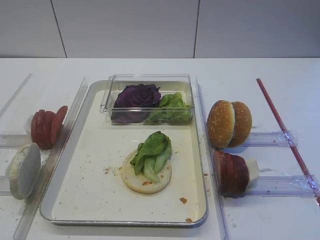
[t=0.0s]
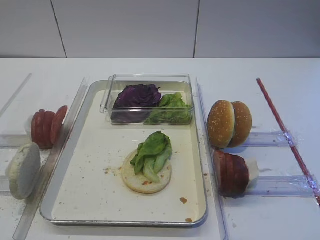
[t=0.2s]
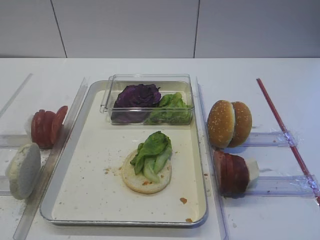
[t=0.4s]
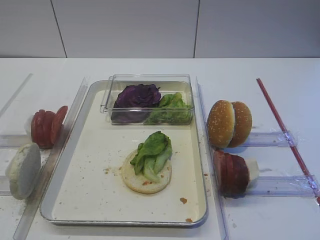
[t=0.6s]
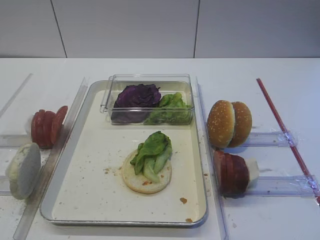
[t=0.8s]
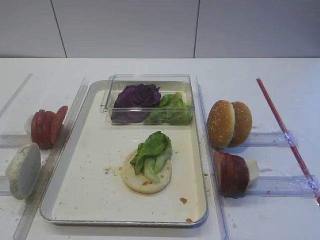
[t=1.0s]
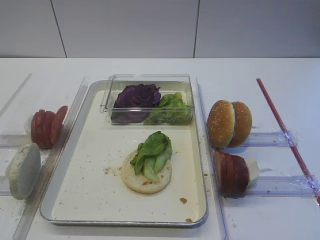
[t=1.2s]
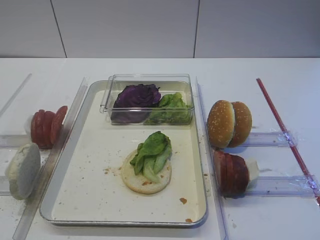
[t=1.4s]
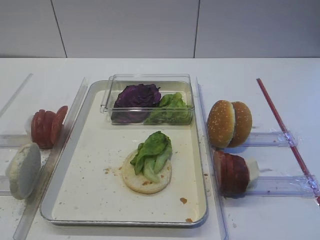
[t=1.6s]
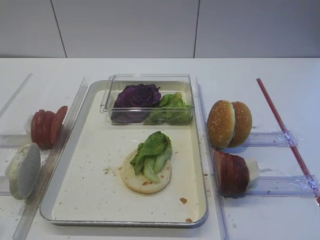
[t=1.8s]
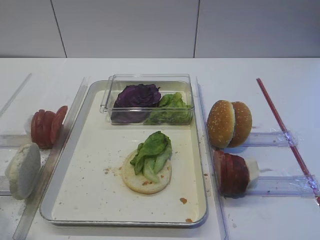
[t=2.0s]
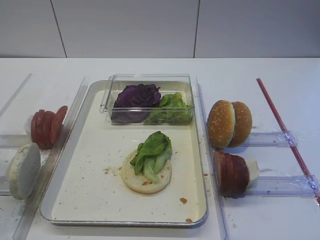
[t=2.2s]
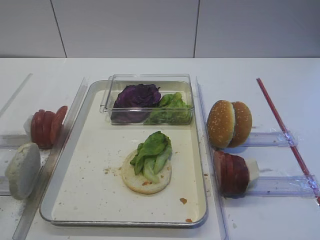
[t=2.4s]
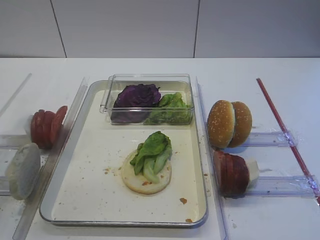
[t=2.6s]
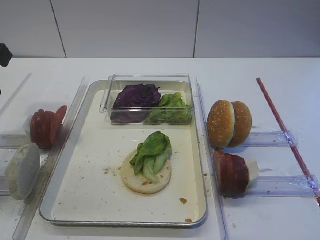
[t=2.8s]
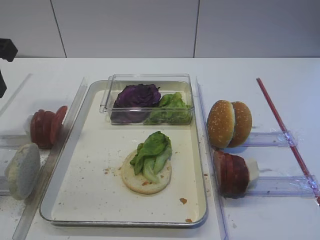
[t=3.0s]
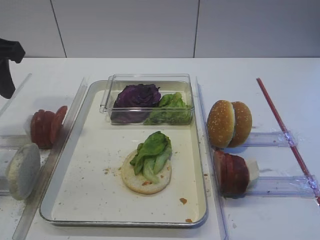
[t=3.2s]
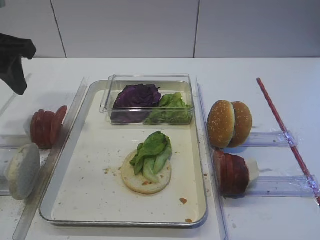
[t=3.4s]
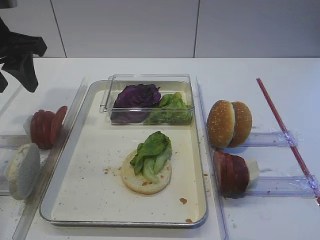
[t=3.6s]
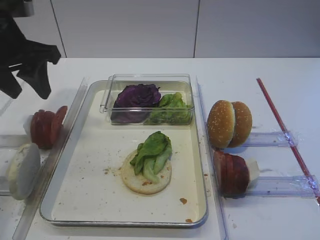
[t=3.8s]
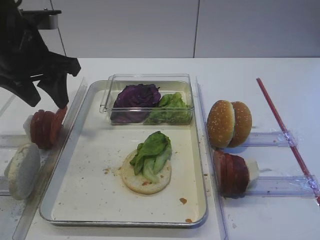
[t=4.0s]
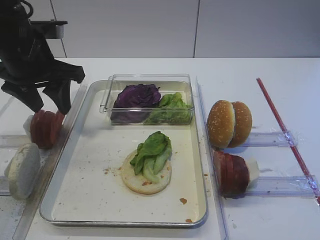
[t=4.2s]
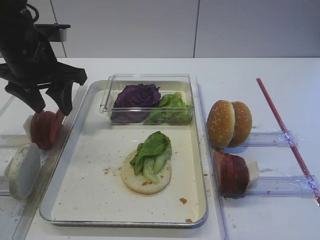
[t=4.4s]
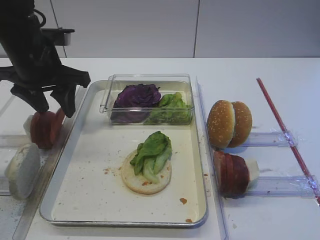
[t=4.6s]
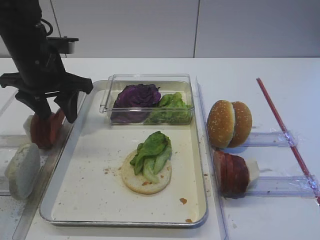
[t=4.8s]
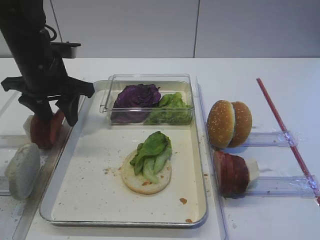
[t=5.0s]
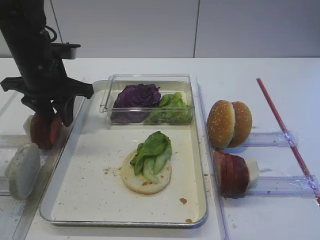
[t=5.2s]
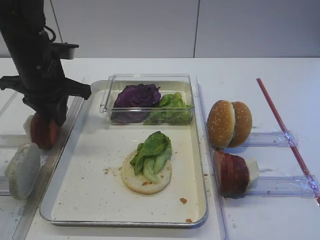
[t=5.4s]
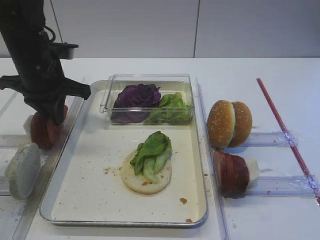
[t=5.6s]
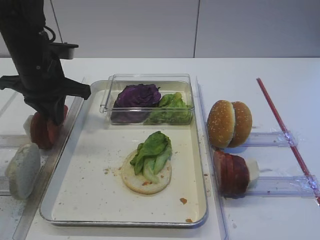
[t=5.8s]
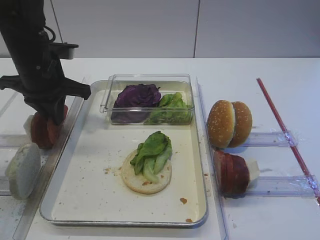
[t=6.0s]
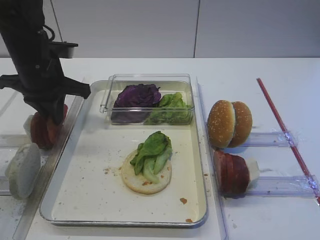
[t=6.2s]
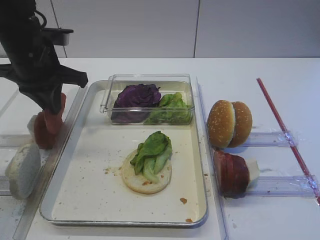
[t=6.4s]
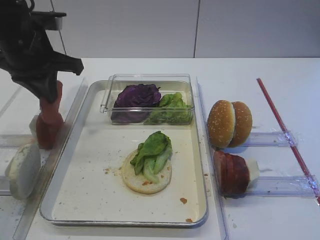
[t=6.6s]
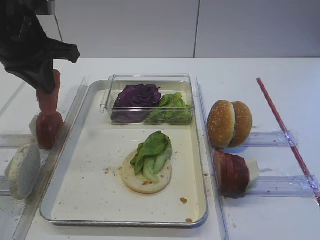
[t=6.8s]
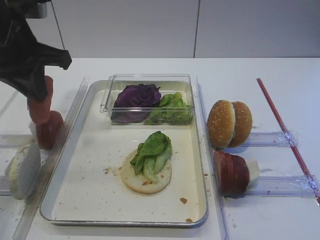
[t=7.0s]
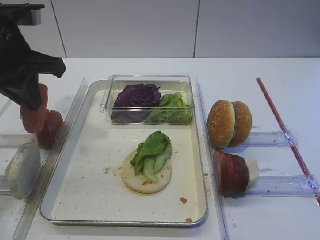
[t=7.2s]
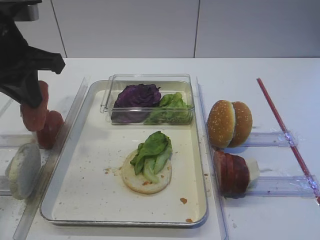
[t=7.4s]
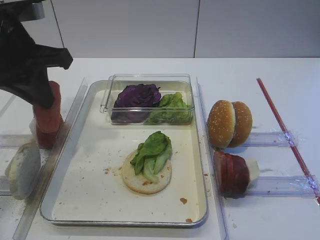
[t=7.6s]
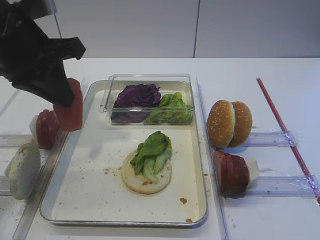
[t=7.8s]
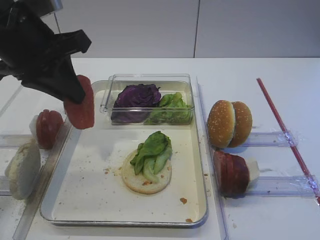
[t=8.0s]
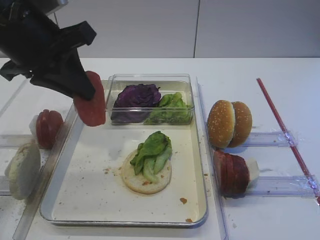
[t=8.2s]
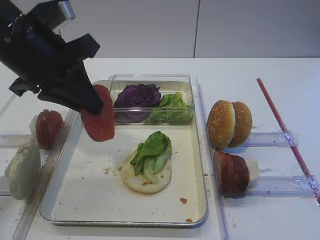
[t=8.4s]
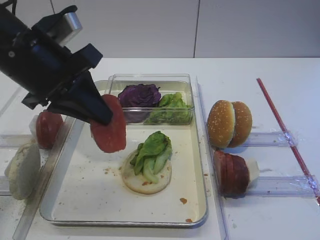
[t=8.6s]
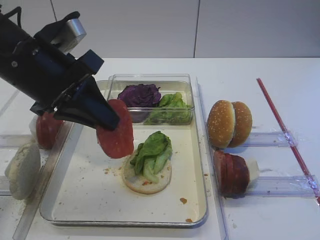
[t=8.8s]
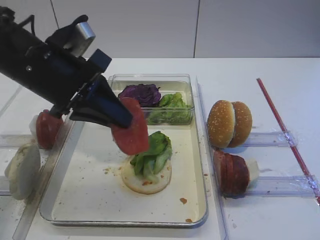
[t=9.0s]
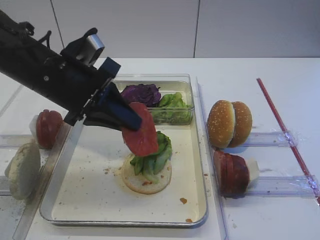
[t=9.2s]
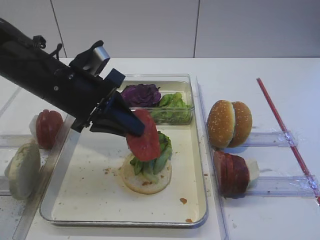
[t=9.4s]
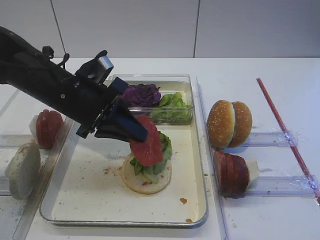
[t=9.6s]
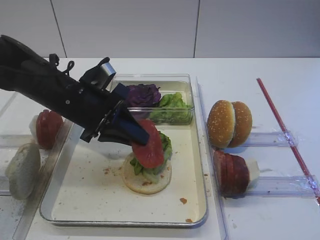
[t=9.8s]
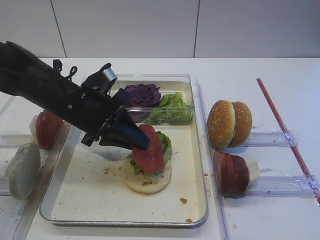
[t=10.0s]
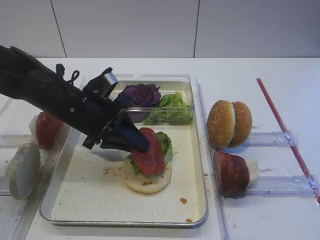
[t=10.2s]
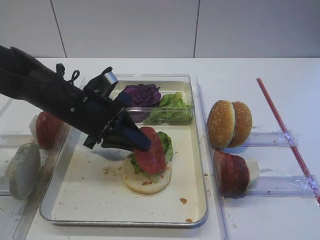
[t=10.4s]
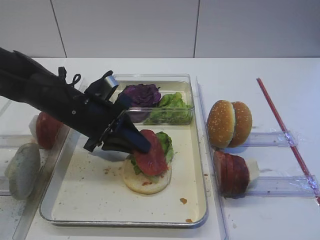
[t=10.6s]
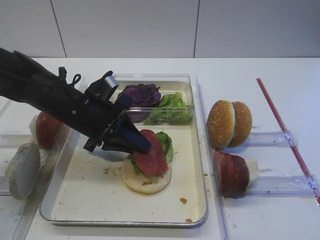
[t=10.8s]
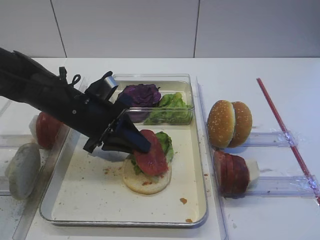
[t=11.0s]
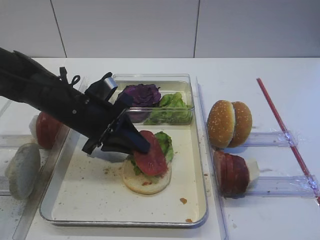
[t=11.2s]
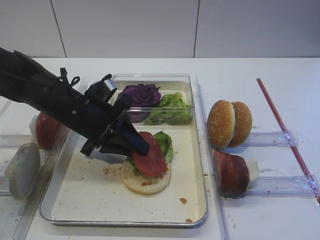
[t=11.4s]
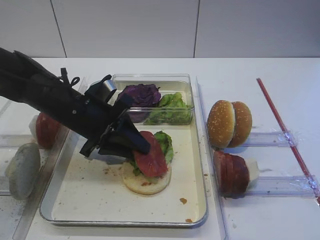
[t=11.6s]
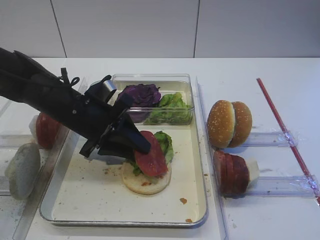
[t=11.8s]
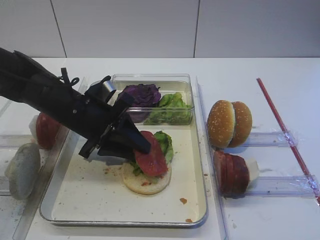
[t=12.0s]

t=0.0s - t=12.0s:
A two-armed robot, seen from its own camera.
Step, t=0.0s - t=6.4s: Pick up the tomato slice with the left gripper.
t=1.6s - t=3.0s: The left gripper goes about 25 cm forward.
t=3.0s - t=4.4s: The left gripper goes about 10 cm forward, downward and to the right.
t=4.4s - t=6.0s: The left gripper closes up.
t=6.0s - t=7.6s: The left gripper moves upward and backward, approximately 10 cm.
t=7.6s - t=9.0s: The left gripper moves to the right, some 5 cm.
t=9.0s - t=10.4s: The left gripper moves downward, approximately 10 cm.
t=10.4s - t=12.0s: The left gripper opens up.

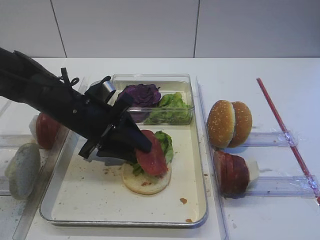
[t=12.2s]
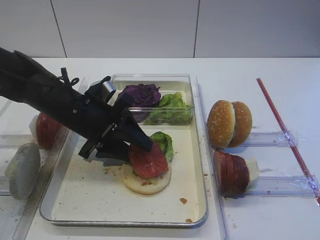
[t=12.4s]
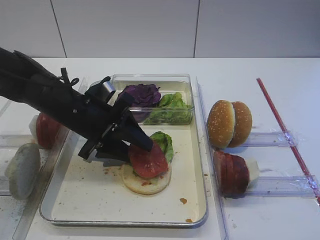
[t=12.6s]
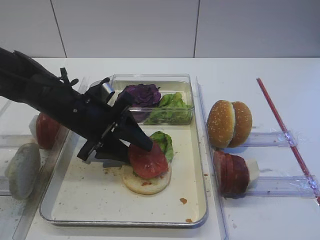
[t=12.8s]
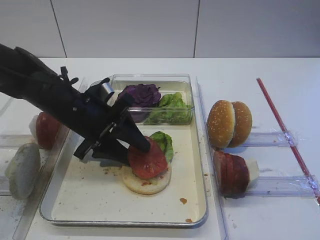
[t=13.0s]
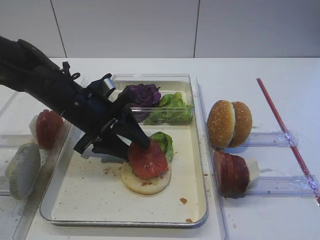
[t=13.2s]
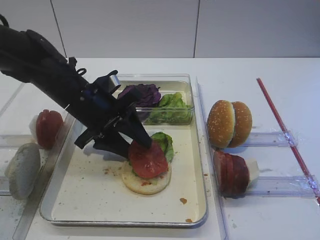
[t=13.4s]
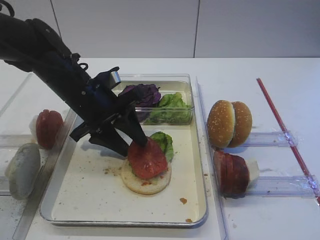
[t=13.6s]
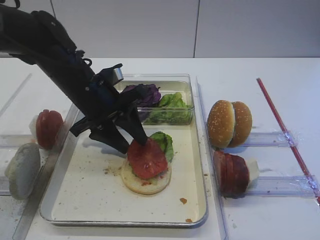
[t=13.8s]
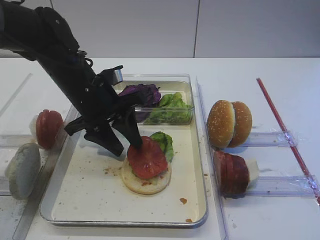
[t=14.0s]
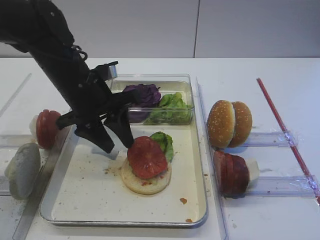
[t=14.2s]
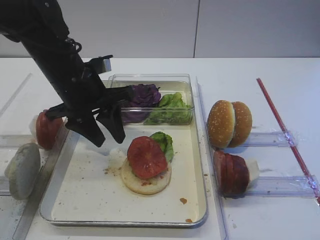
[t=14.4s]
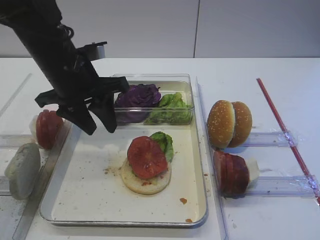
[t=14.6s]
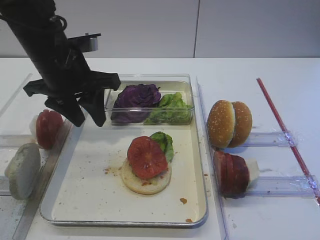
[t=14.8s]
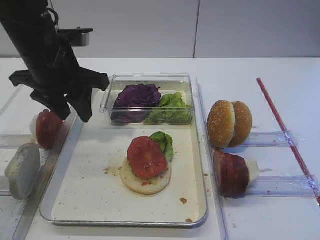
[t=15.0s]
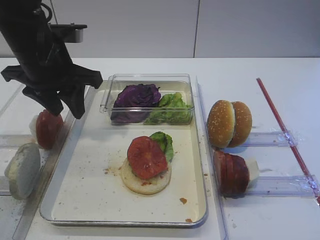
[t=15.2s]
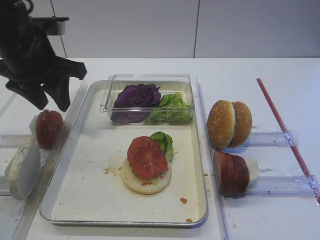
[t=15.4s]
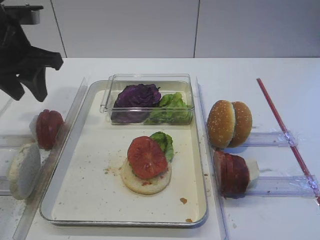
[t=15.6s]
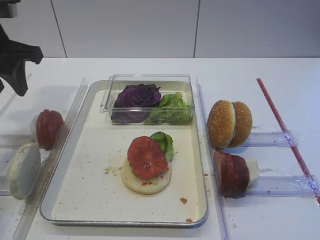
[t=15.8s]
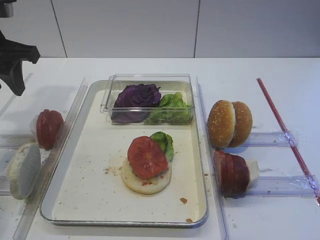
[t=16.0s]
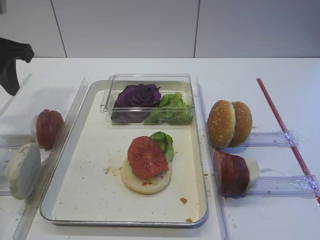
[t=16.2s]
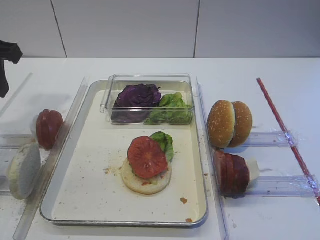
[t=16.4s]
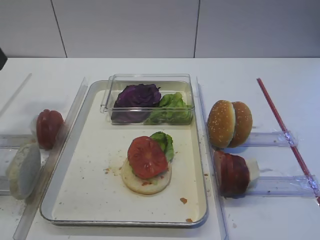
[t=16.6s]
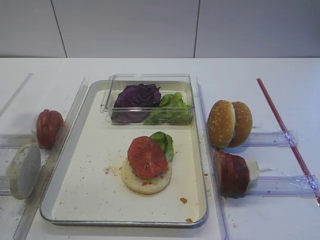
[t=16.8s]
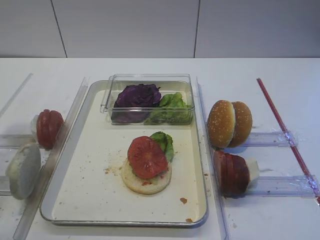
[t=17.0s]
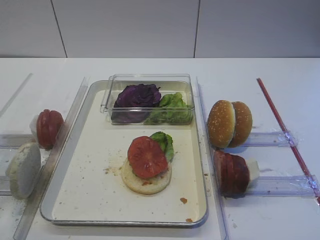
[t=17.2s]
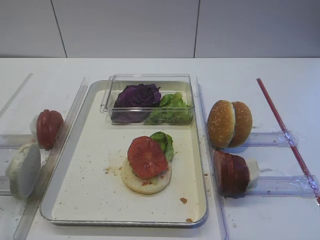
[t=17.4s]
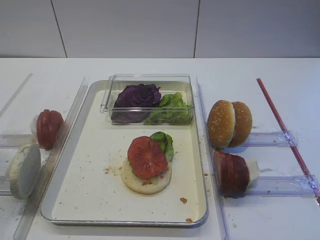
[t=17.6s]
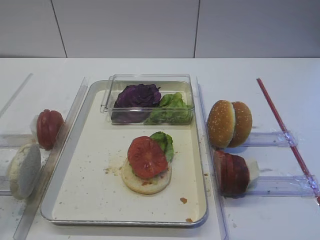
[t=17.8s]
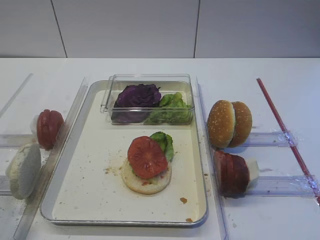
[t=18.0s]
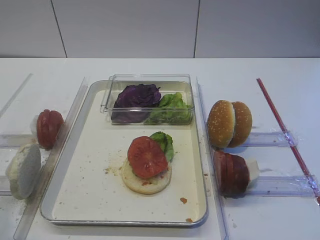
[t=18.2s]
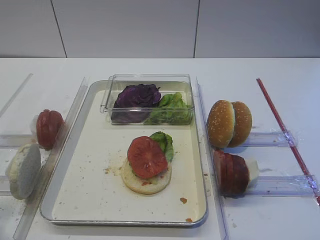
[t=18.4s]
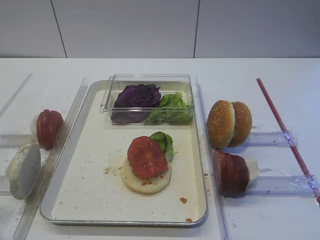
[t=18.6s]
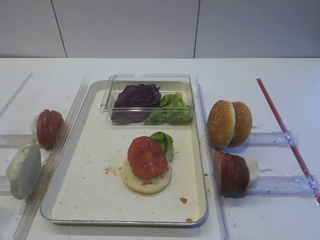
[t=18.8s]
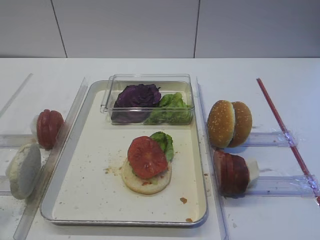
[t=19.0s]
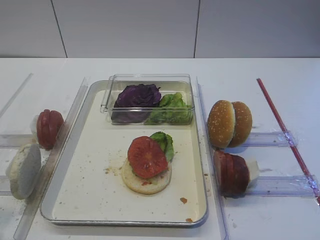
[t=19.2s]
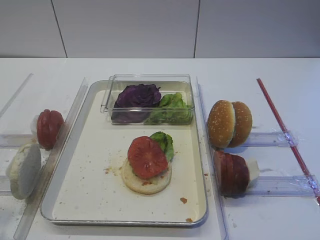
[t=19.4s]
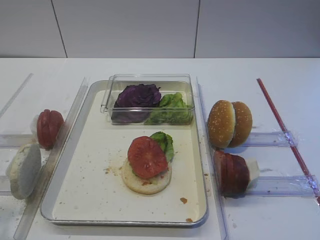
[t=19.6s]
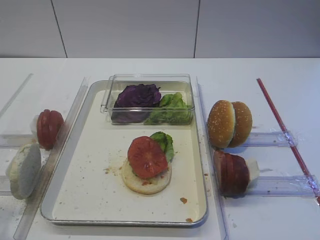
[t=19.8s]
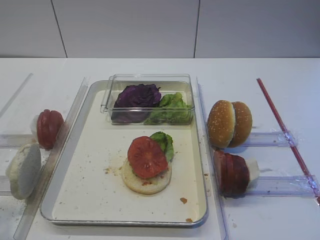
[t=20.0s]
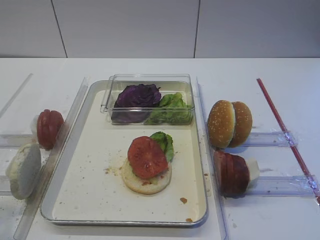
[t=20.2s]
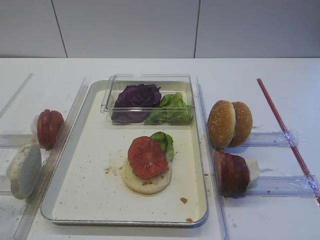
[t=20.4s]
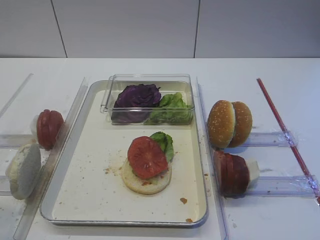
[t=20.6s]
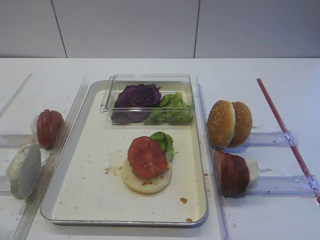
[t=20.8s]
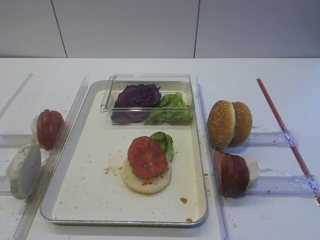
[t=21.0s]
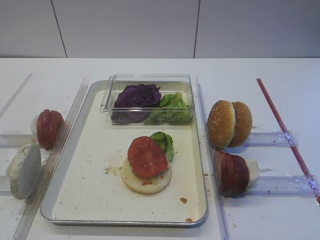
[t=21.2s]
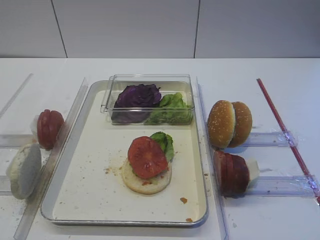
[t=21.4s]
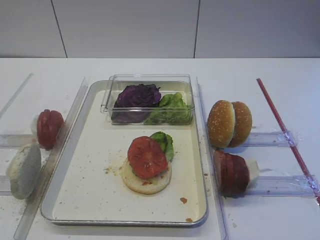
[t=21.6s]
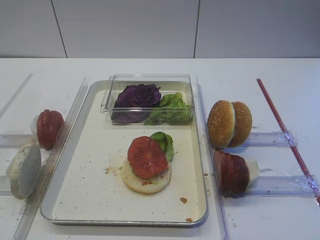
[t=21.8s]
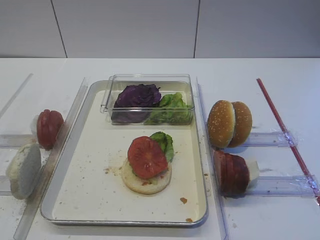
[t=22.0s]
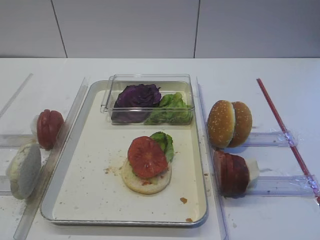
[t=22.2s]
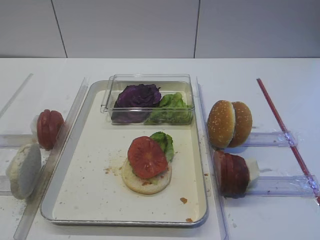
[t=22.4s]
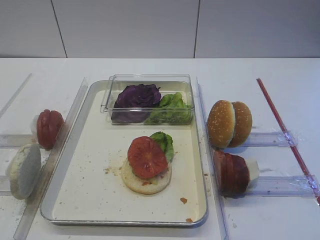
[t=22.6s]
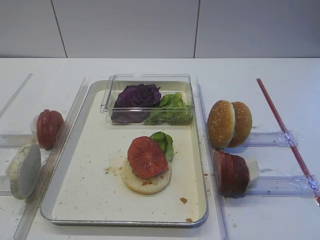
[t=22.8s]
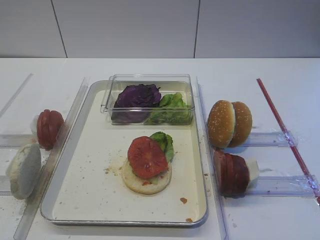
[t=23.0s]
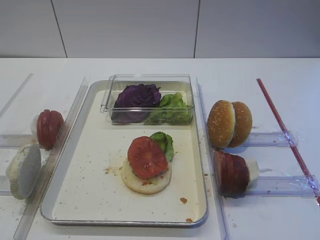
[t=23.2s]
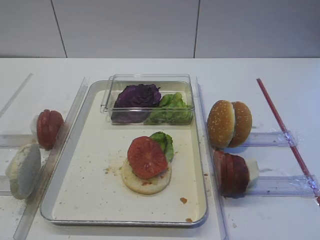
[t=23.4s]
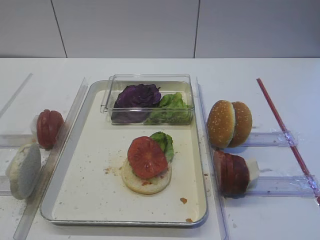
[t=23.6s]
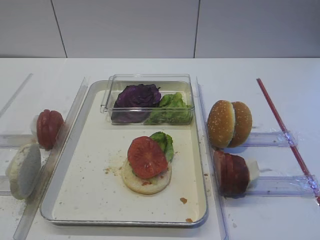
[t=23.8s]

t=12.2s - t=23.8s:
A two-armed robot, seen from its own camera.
t=12.2s - t=13.6s: The grippers move only a little.
t=13.6s - t=15.0s: The left gripper heads upward, covering approximately 10 cm.
t=15.0s - t=16.6s: The left gripper shifts about 15 cm to the left, backward and upward.
t=16.6s - t=18.0s: The left gripper travels backward by approximately 20 cm.
t=22.4s - t=23.8s: Neither gripper changes place.
